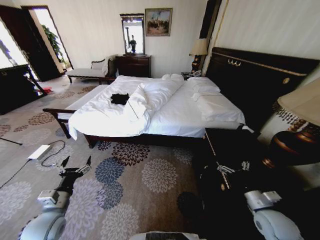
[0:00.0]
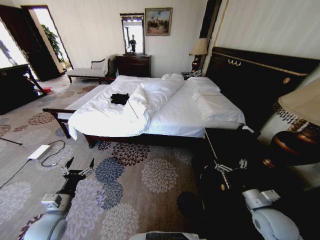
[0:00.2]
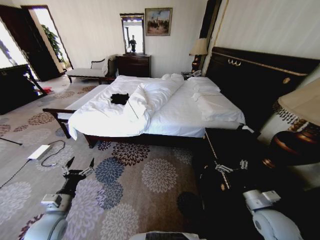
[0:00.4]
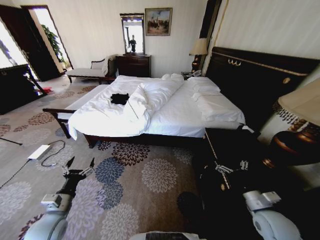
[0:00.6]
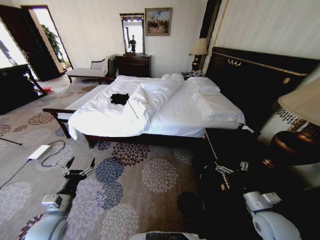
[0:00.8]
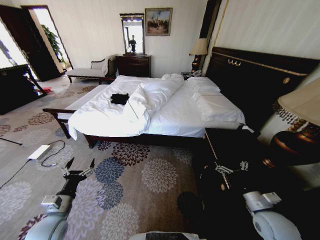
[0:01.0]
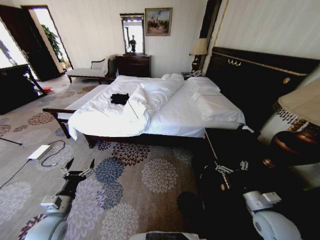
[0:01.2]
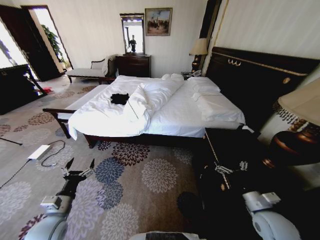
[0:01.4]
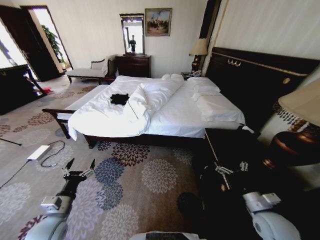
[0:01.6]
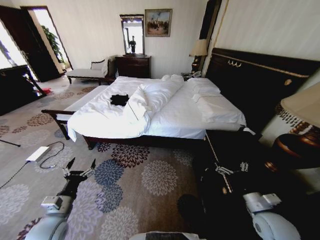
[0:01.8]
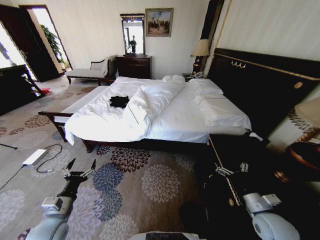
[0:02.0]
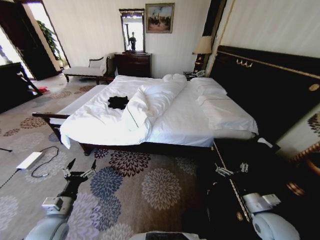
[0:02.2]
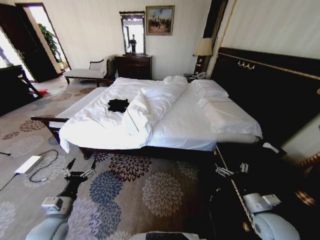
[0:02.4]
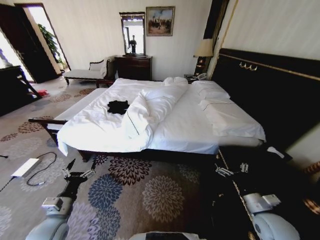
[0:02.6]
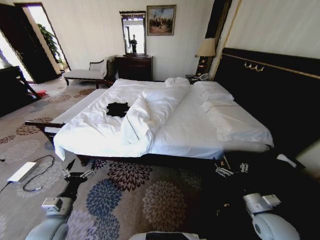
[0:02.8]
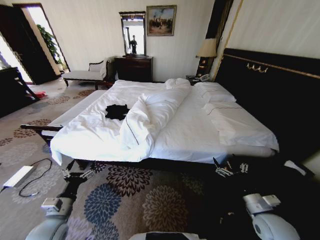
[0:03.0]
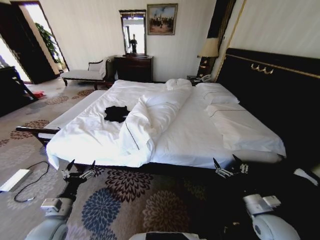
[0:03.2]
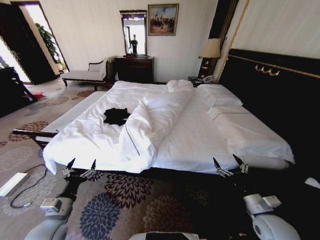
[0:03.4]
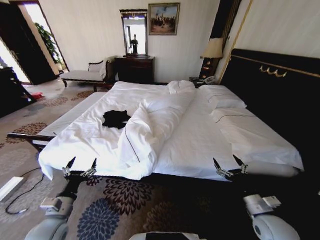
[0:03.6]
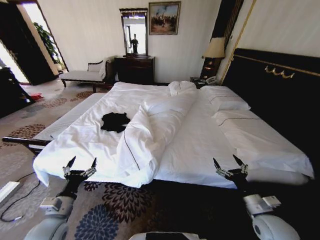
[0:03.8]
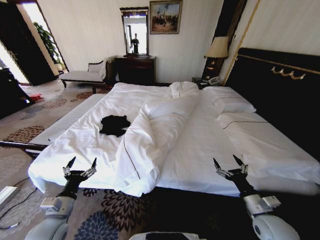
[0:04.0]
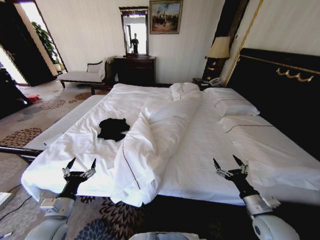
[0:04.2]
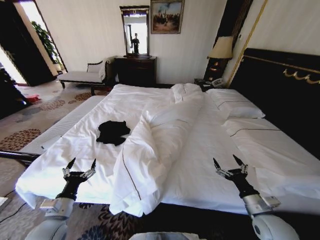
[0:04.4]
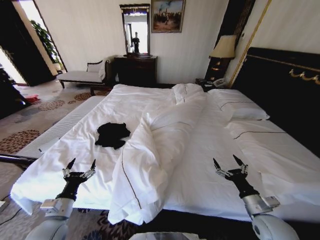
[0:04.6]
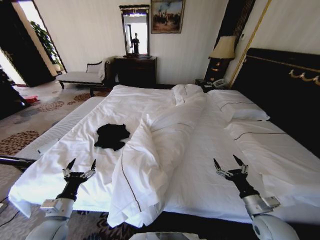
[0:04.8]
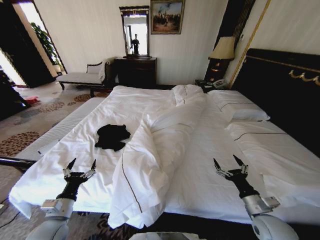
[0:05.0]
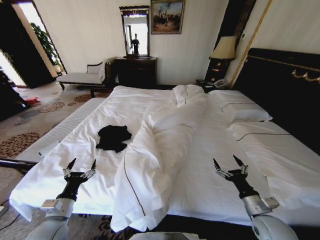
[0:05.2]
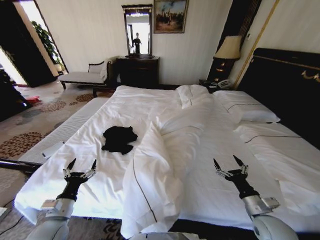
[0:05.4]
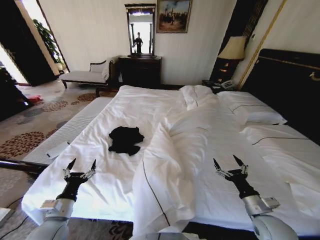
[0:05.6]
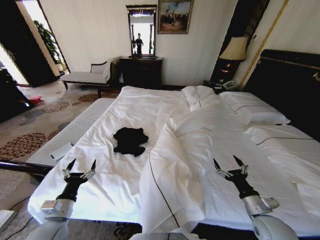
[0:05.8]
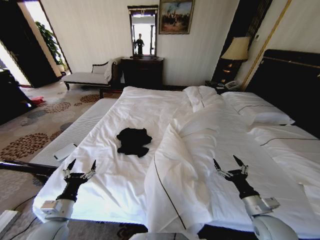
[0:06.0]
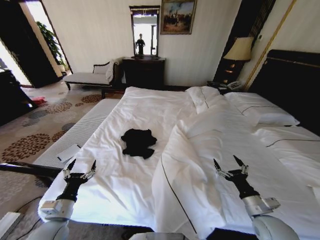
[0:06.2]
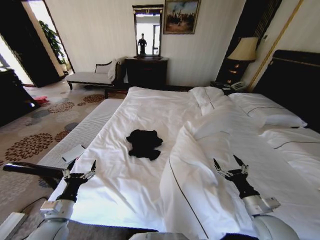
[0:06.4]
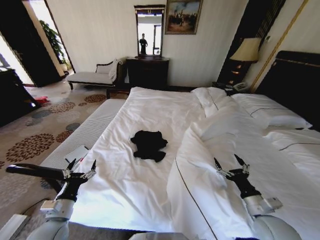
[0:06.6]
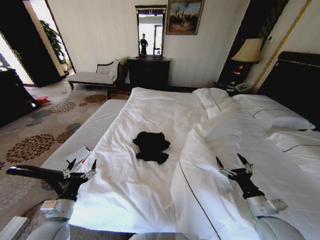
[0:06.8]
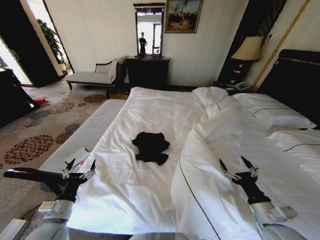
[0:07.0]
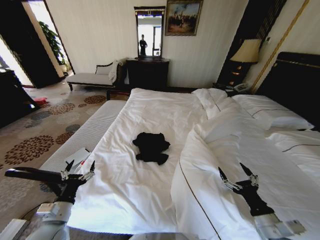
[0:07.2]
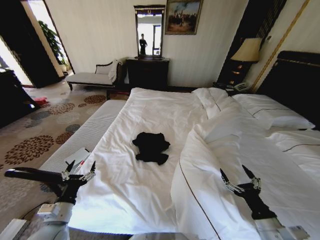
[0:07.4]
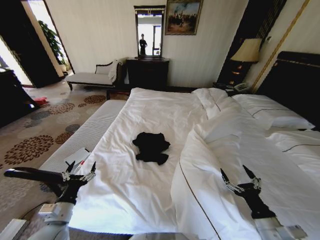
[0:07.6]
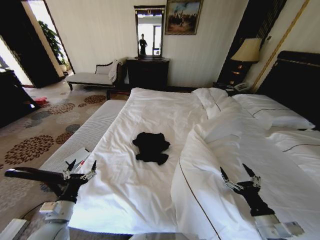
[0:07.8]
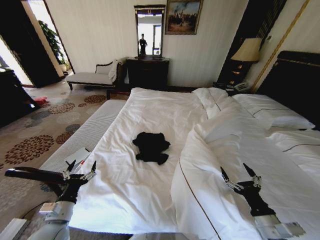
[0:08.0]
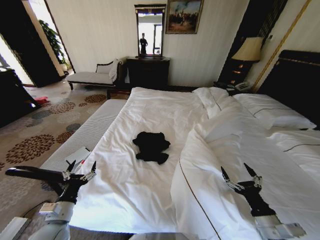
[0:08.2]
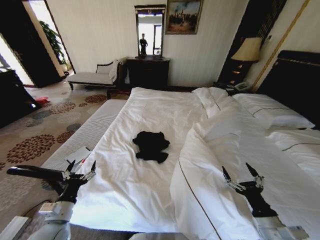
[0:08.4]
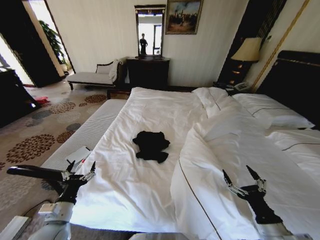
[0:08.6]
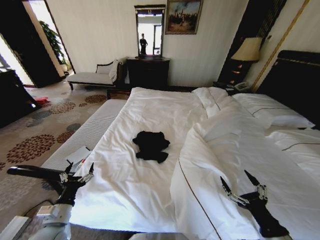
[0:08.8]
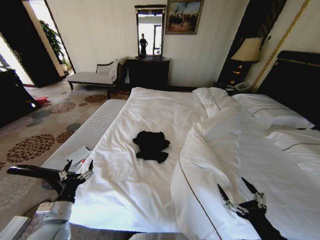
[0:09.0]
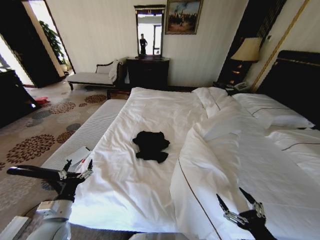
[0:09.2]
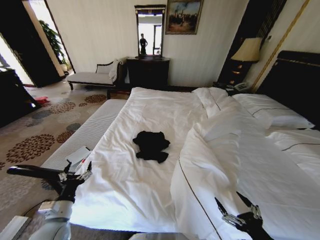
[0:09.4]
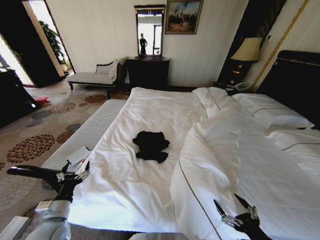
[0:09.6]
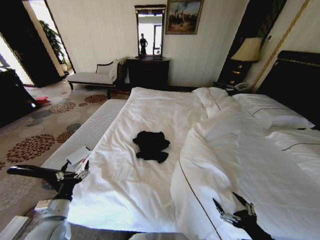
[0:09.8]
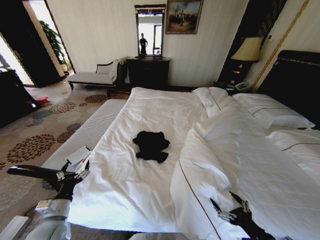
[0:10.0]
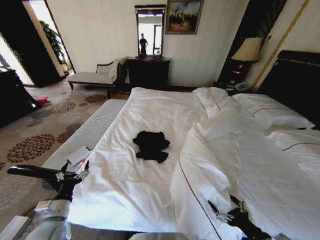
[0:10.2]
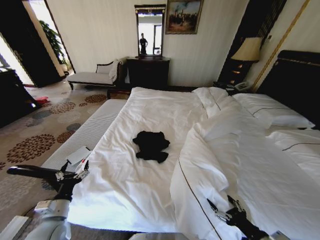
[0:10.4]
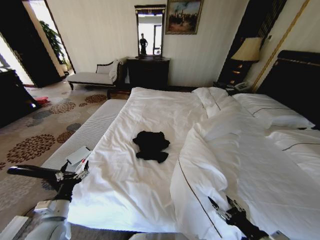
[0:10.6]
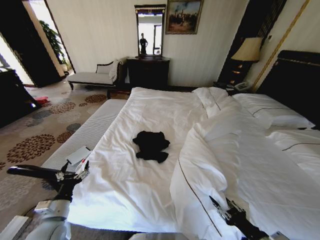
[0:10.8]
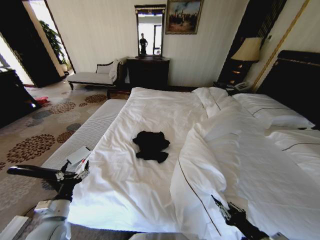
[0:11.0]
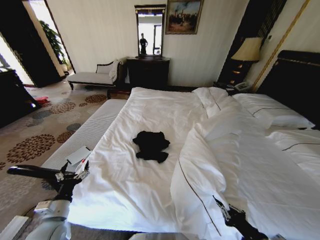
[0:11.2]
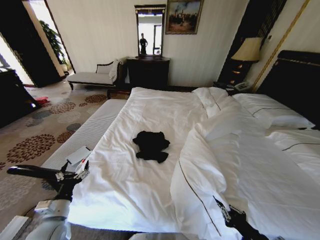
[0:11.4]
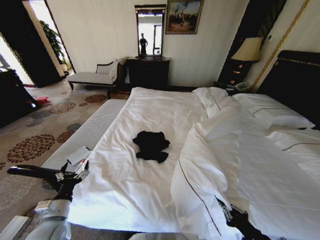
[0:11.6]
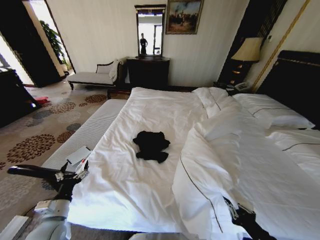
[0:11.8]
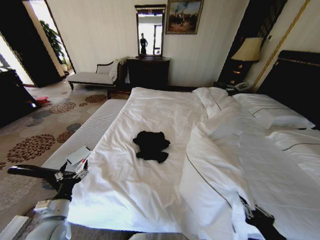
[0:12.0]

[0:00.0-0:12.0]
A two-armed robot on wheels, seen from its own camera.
Task of the whole recording: Fold the clothes on the bed.
0:06.0 to 0:07.6: The right gripper goes roughly 5 cm backward.
0:07.6 to 0:09.0: The right gripper is displaced backward by some 5 cm.
0:10.4 to 0:12.0: The right gripper closes.

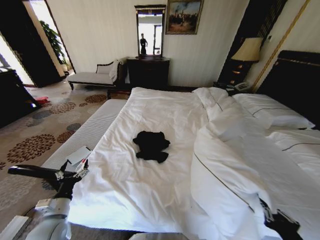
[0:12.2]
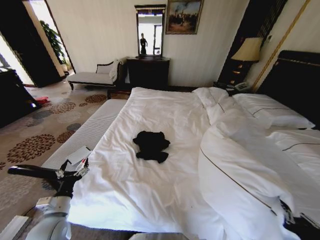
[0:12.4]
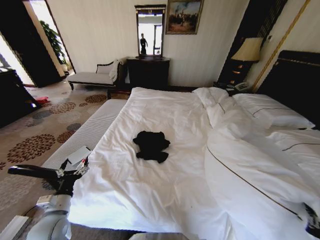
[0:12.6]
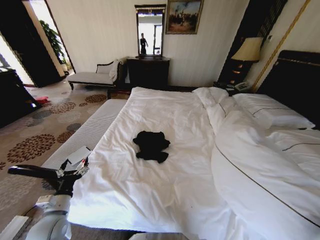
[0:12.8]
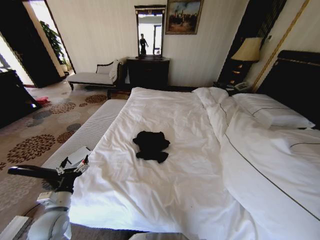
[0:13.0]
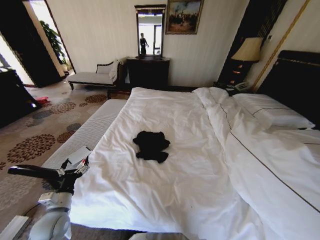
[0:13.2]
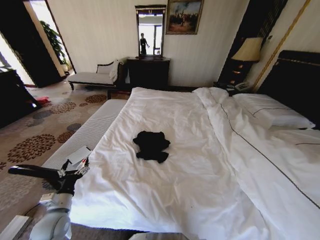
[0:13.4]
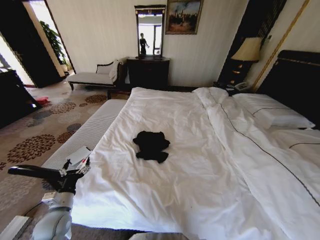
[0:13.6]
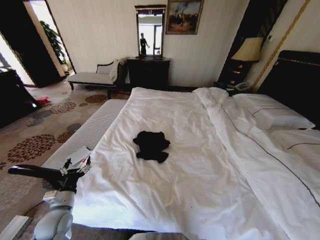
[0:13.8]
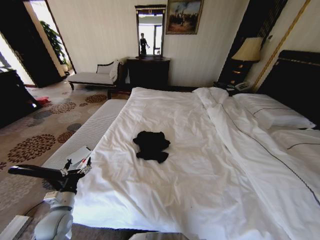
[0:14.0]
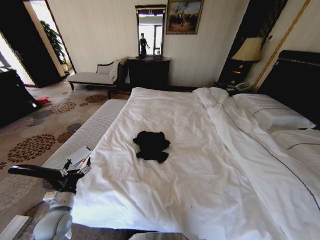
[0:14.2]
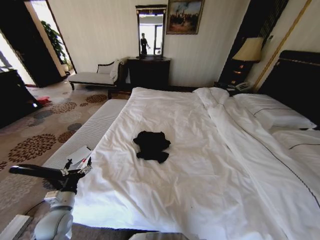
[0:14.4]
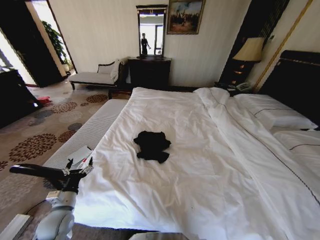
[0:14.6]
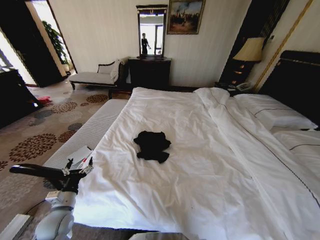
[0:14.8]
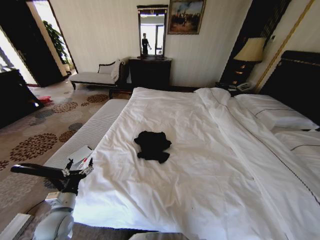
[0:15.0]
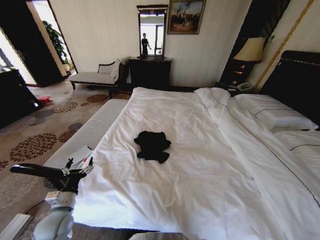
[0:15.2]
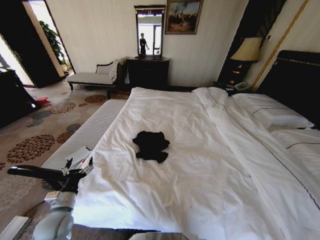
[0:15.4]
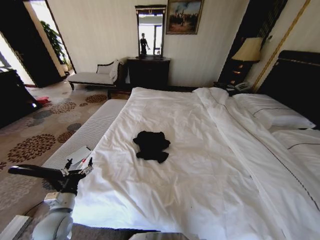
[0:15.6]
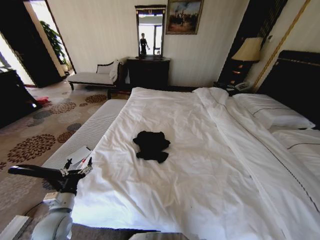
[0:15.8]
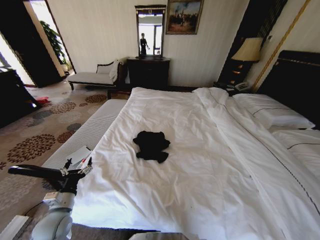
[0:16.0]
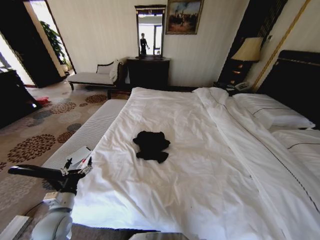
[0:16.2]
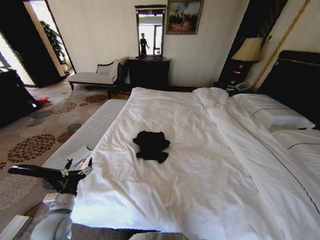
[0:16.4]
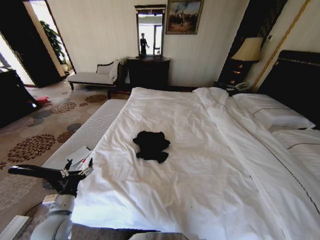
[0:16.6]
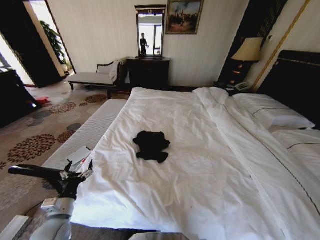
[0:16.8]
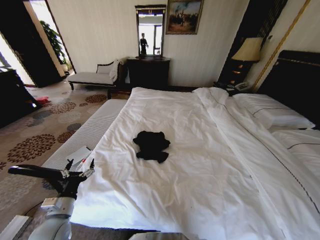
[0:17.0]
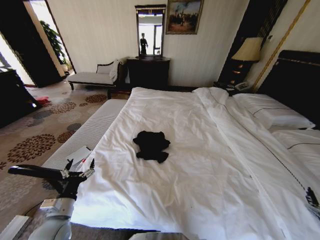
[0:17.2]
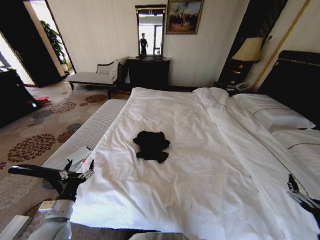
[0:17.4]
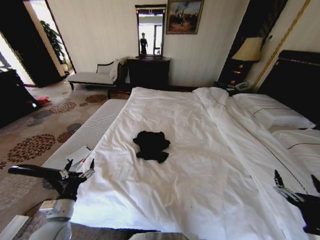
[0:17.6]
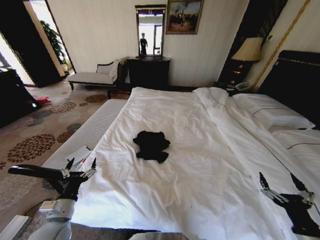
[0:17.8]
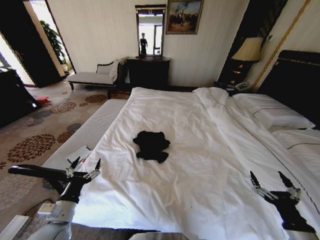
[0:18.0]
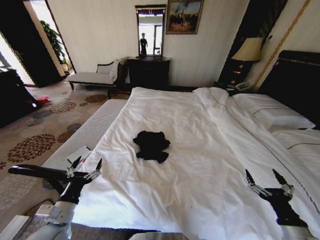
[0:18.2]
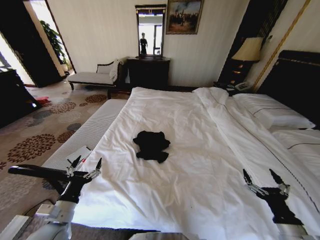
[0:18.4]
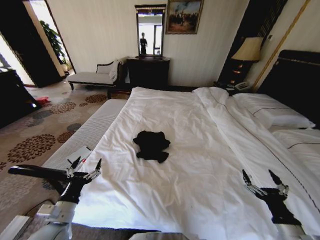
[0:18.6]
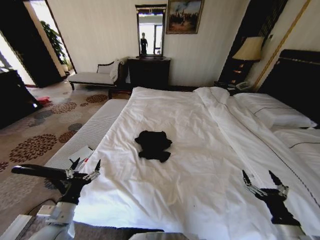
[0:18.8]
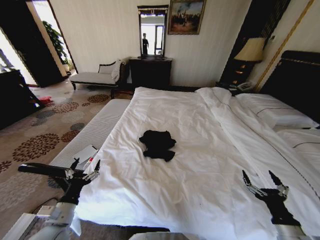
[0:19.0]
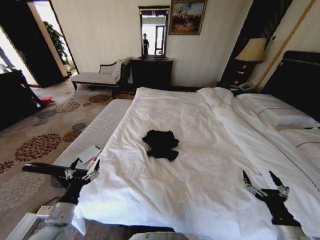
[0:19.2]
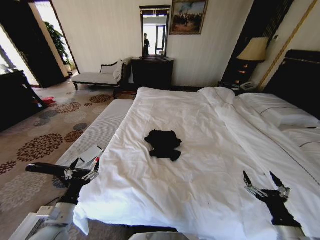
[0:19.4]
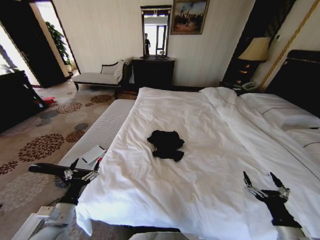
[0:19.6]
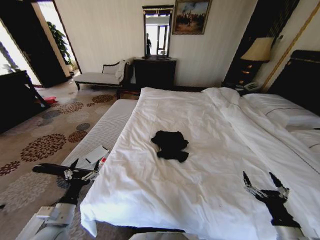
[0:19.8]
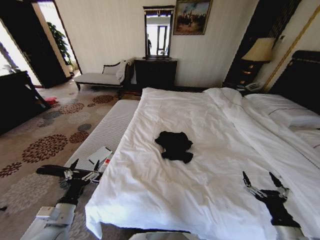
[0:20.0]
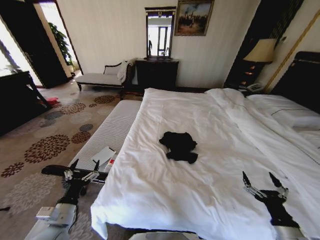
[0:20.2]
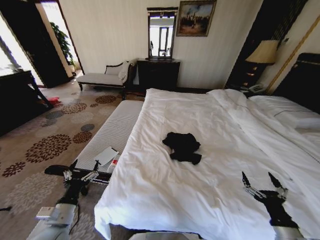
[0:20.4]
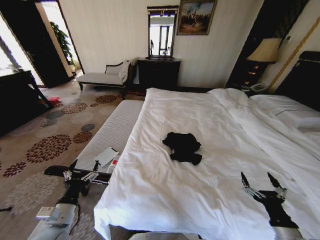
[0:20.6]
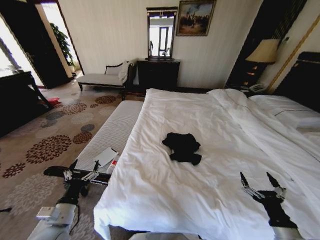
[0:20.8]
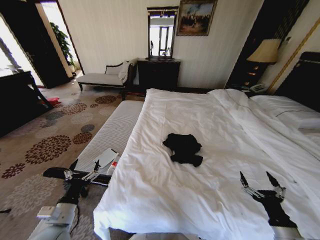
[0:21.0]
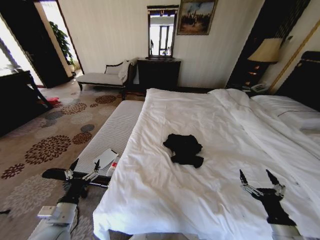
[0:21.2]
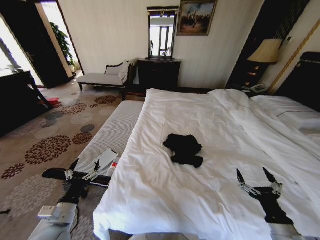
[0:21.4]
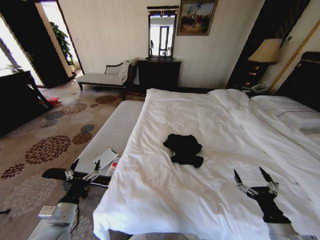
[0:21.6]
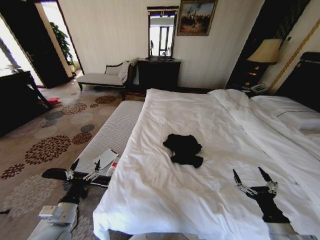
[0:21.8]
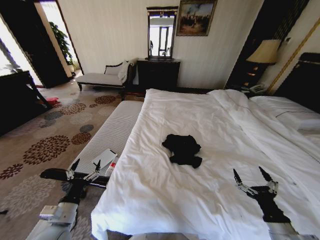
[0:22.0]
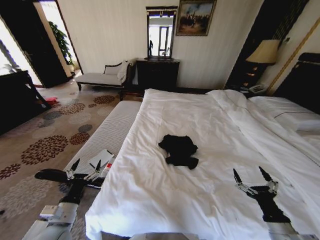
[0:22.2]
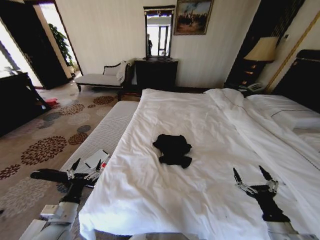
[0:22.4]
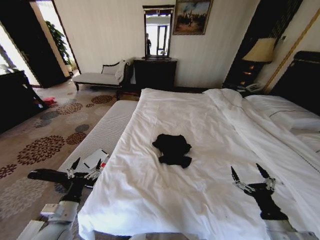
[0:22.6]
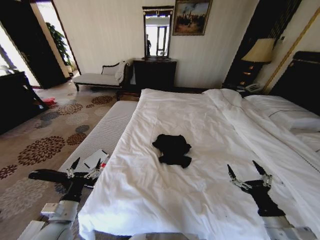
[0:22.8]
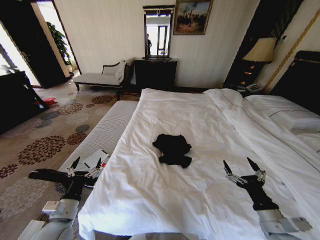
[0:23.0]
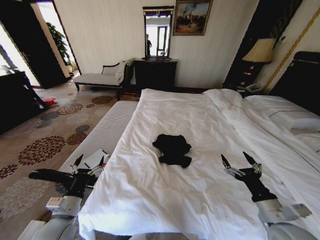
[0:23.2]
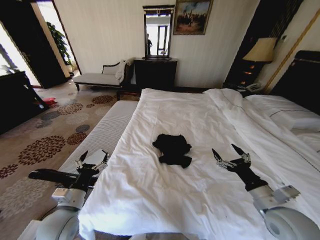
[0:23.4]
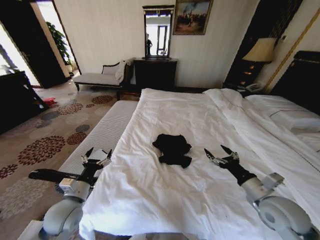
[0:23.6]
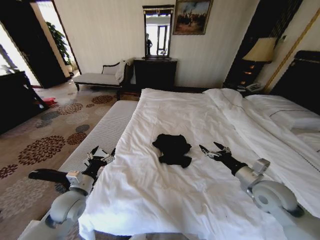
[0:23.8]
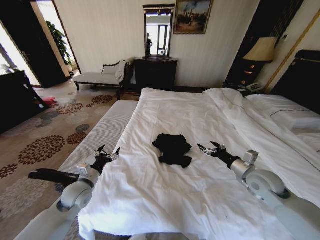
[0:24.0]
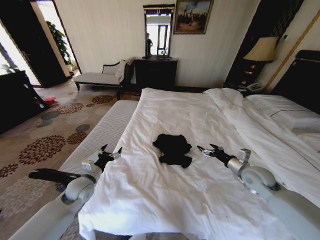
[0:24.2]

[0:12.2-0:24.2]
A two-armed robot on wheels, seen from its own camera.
Task of the whole recording: Fold the clothes on the bed.
0:12.2 to 0:13.8: The right gripper heads to the right and backward, covering approximately 25 cm.
0:13.8 to 0:15.2: The right gripper goes some 15 cm downward.
0:15.2 to 0:16.6: The right gripper heads upward and forward, covering roughly 10 cm, and opens.
0:16.6 to 0:18.2: The right gripper goes roughly 25 cm forward, to the left and upward, while the left gripper changes place by some 5 cm.
0:22.6 to 0:24.2: The right gripper moves forward, approximately 20 cm, while the left gripper goes about 15 cm forward.
